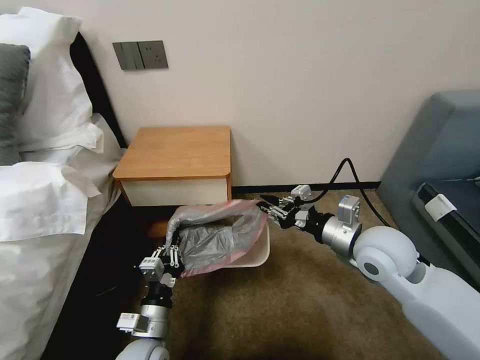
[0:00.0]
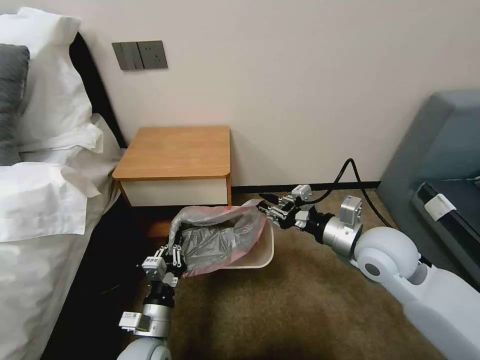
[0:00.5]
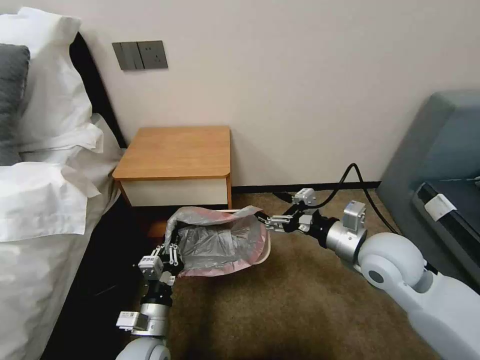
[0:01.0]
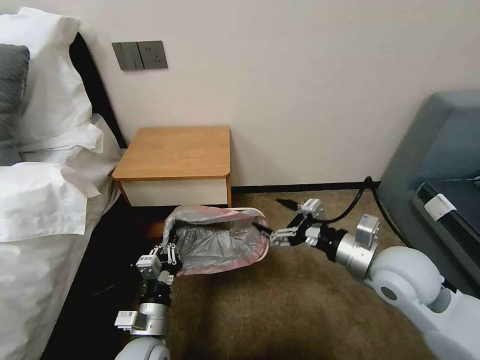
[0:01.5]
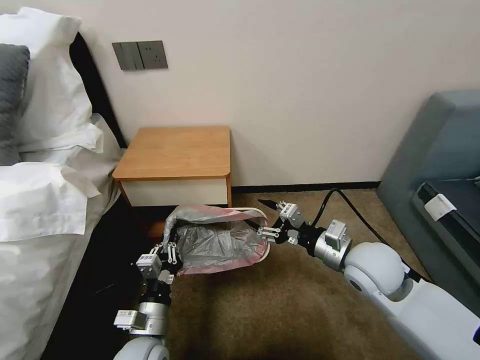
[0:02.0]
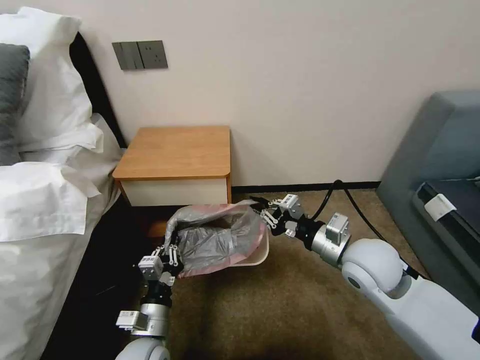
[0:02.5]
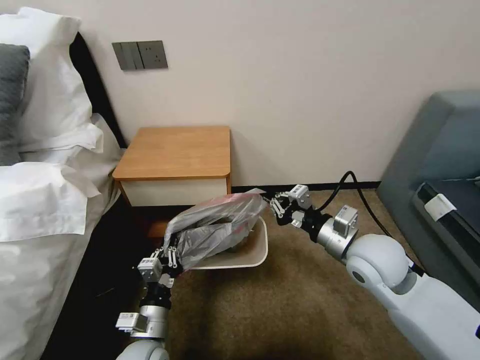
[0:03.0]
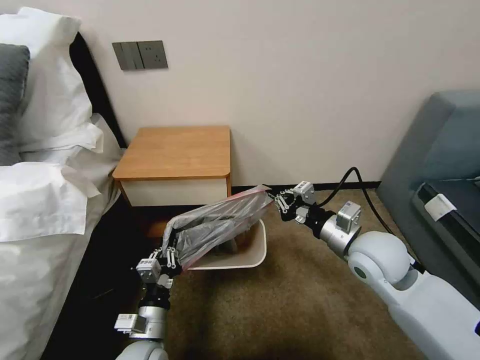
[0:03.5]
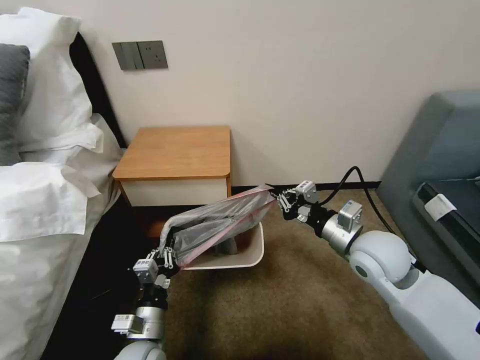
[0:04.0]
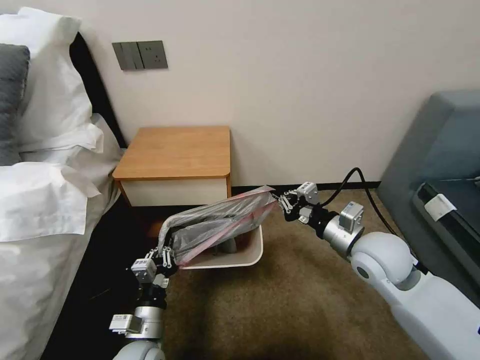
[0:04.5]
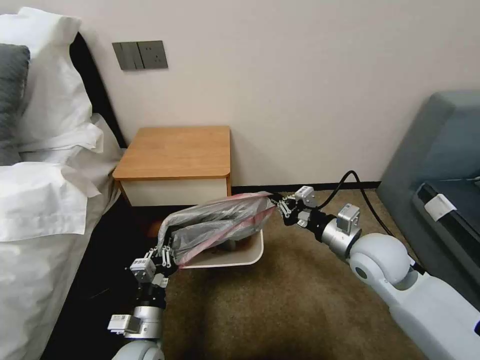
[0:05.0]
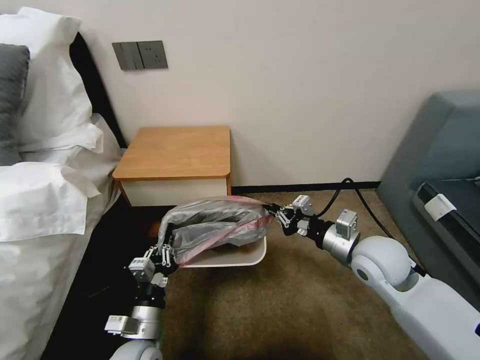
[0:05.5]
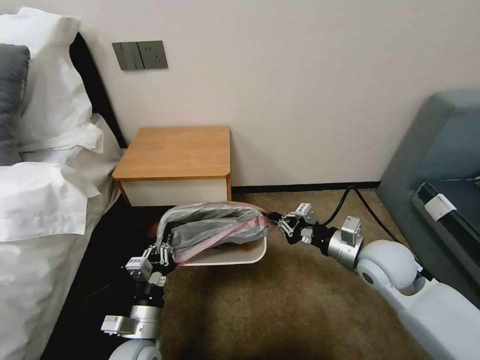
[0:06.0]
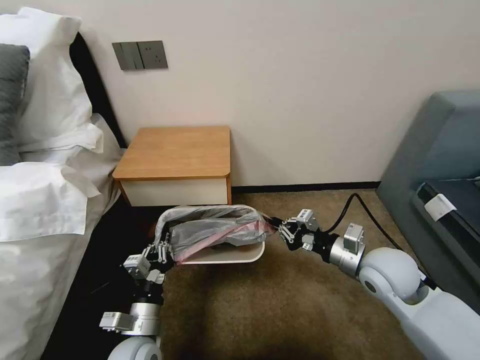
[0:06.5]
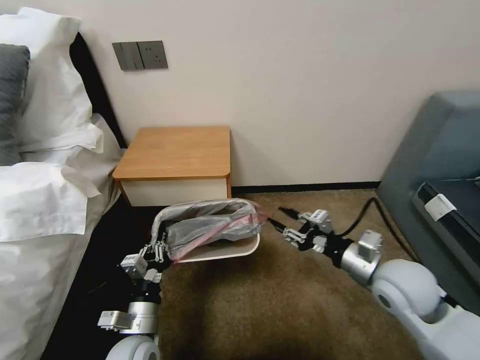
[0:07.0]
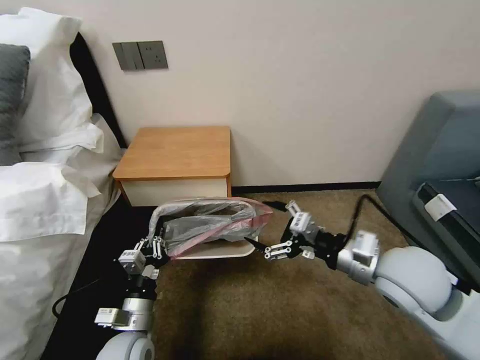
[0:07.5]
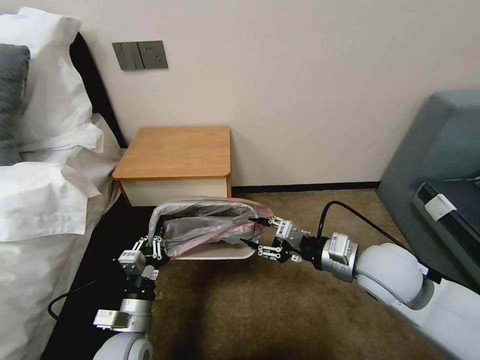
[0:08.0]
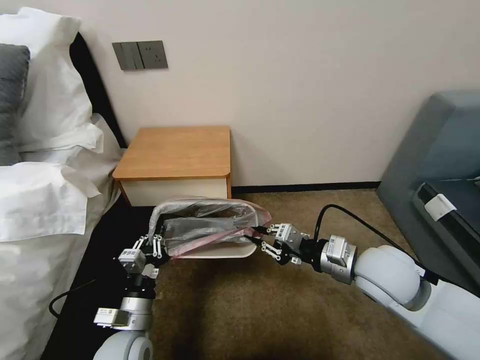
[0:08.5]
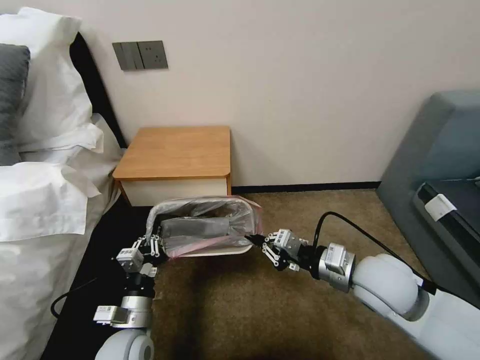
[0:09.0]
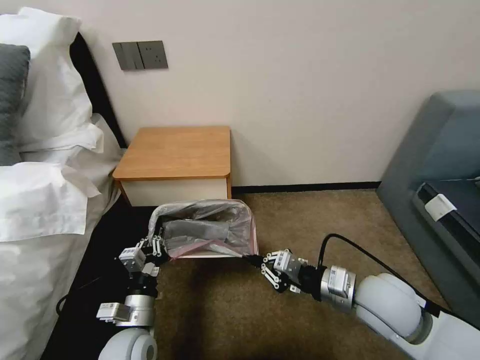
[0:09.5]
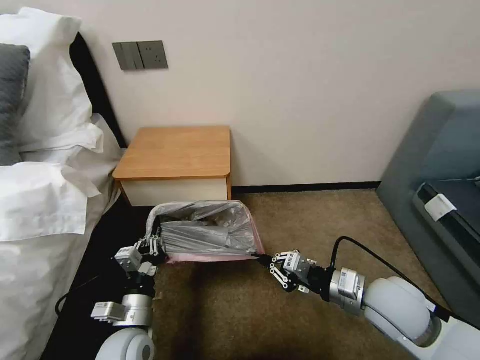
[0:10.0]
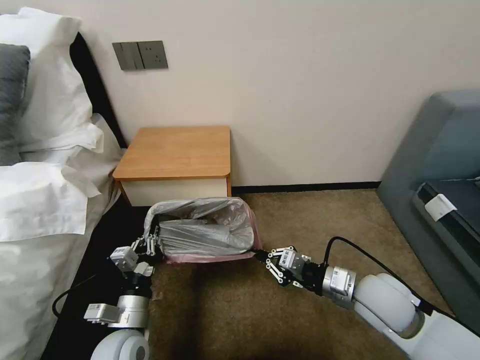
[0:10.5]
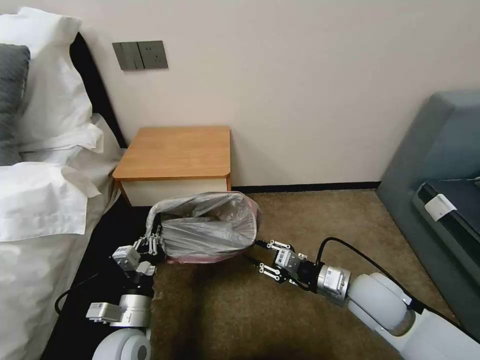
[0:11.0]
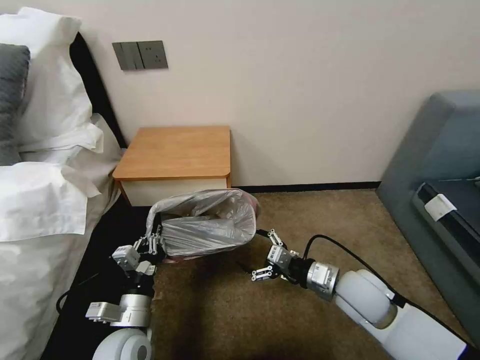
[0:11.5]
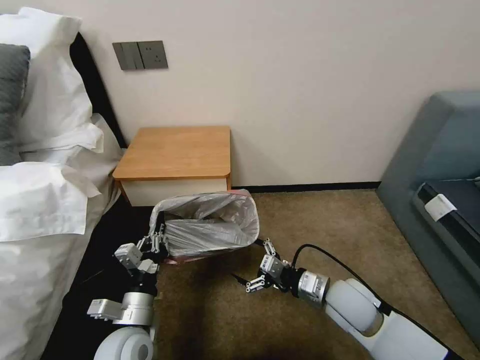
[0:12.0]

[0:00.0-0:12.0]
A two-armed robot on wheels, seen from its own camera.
Task of the whole recording: Pick up the garbage bag from the table and place it over the trash can.
0:00.0 to 0:02.0: The right gripper opens.
0:02.0 to 0:04.0: The right gripper closes up.
0:04.0 to 0:06.0: The grippers make only small movements.
0:06.0 to 0:08.0: The right gripper moves about 5 cm, and opens up.
0:08.0 to 0:10.0: The right gripper shifts some 5 cm downward, and closes up.
0:10.0 to 0:12.0: The right gripper heads downward, covering some 10 cm, and opens its fingers.

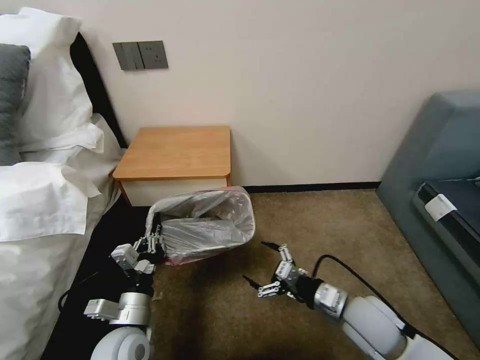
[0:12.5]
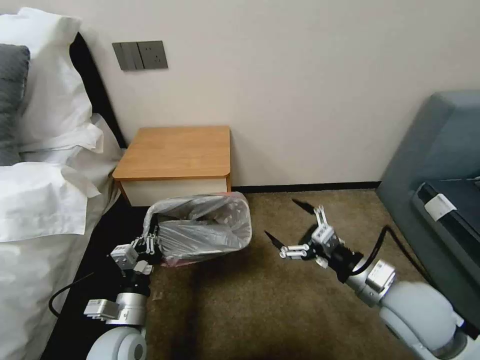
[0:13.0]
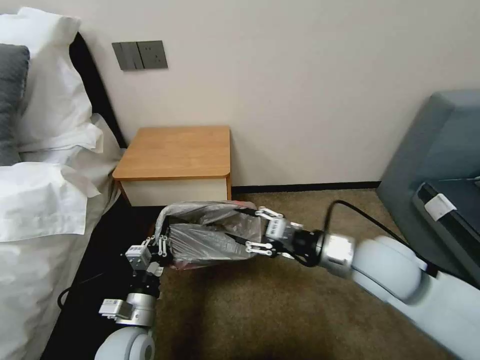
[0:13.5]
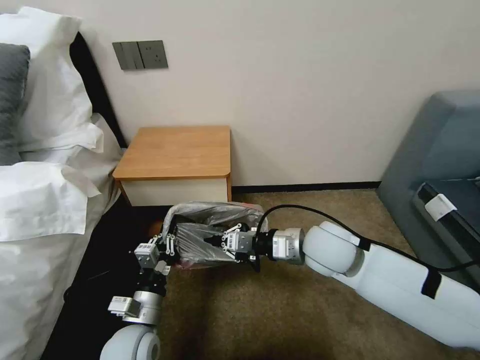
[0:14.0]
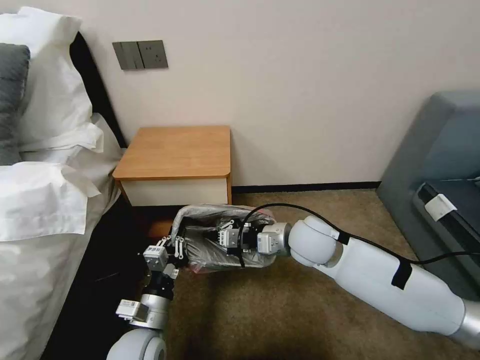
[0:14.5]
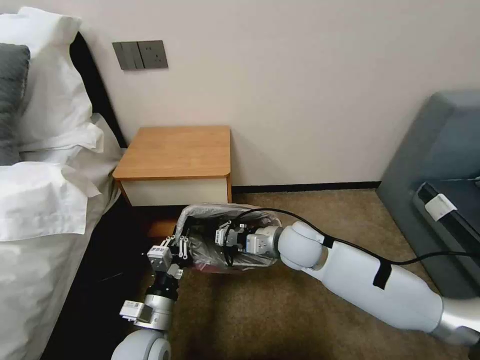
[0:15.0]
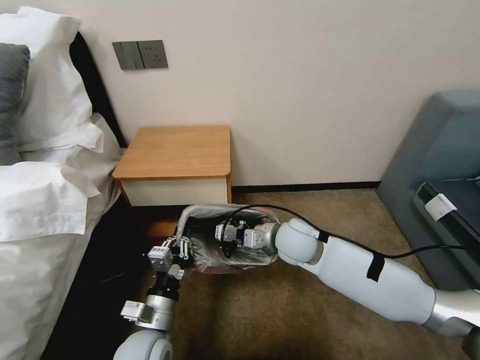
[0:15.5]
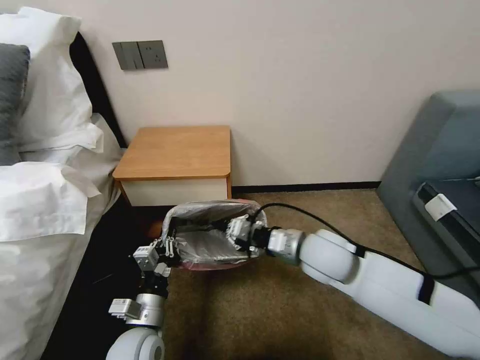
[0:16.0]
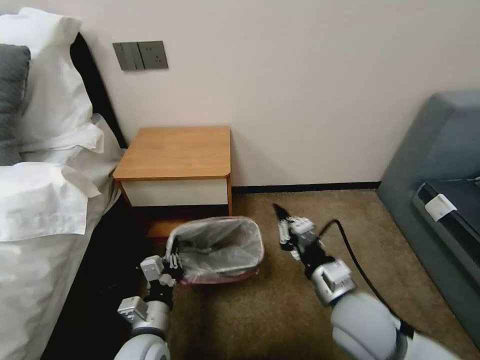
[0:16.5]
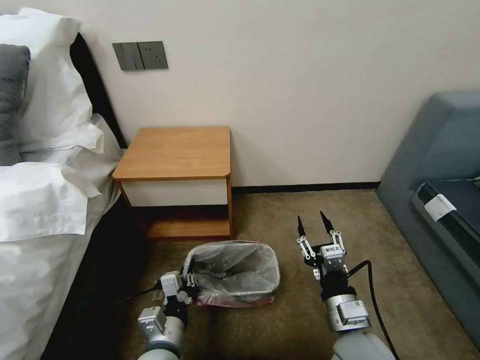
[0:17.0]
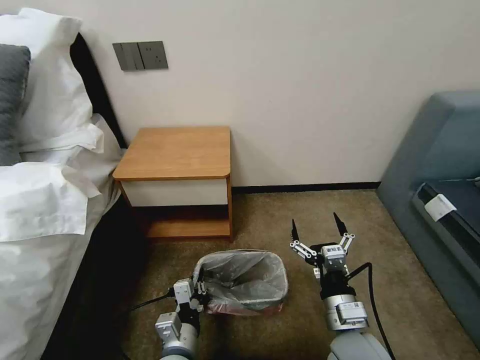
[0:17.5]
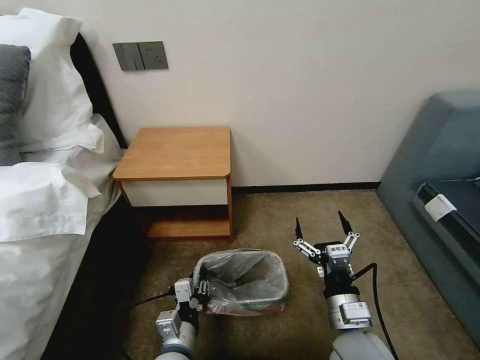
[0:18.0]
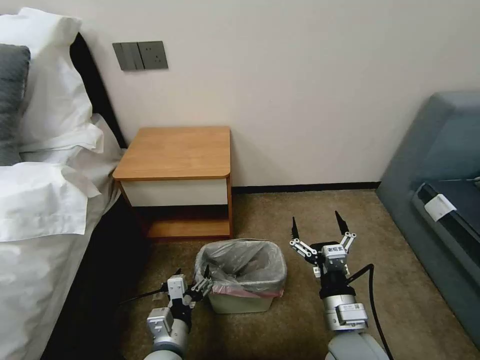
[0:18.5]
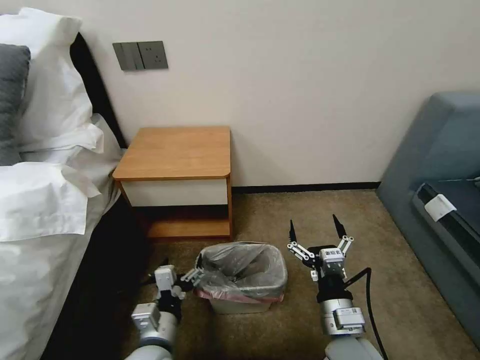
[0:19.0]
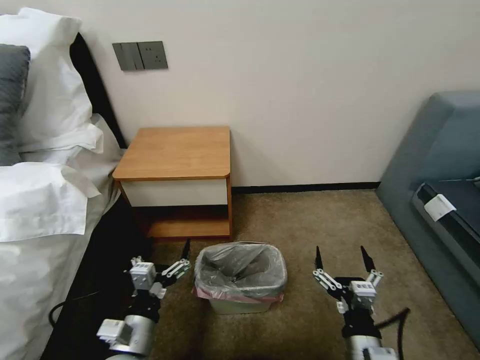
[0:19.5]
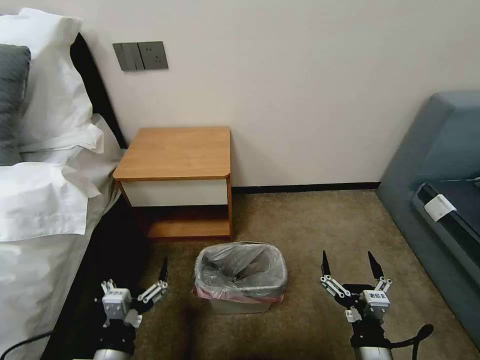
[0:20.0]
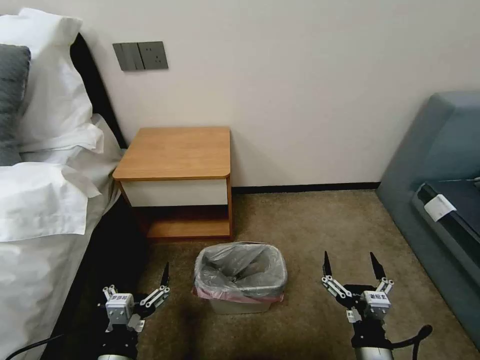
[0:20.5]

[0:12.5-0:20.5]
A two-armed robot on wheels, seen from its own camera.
Task of the whole recording: Pick up the garbage bag from the table and place it over the trash can.
0:12.5 to 0:14.5: The right gripper heads forward, to the left and upward, covering roughly 20 cm, and closes.
0:14.5 to 0:16.5: The right gripper heads backward, covering about 15 cm.
0:16.5 to 0:18.5: The right gripper moves downward, some 5 cm, and opens its fingers. Meanwhile the left gripper opens up.
0:18.5 to 0:20.5: The right gripper heads backward, covering approximately 10 cm, while the left gripper heads to the left and backward, covering about 10 cm.

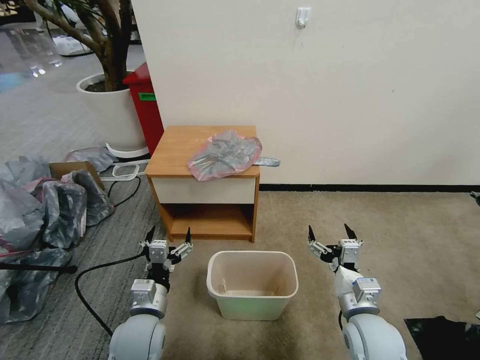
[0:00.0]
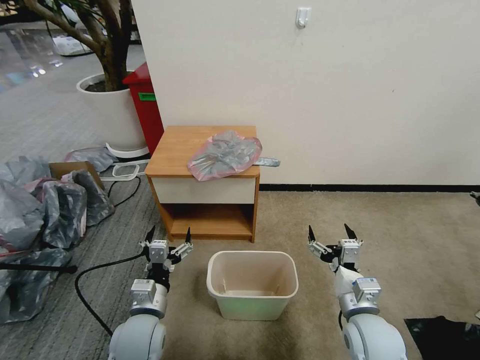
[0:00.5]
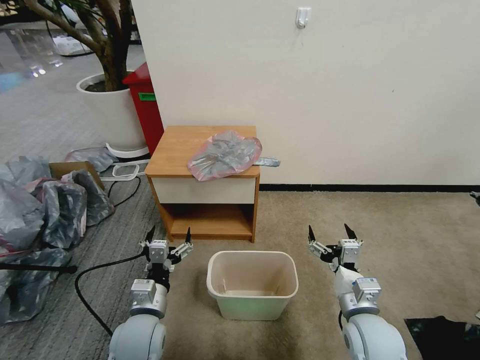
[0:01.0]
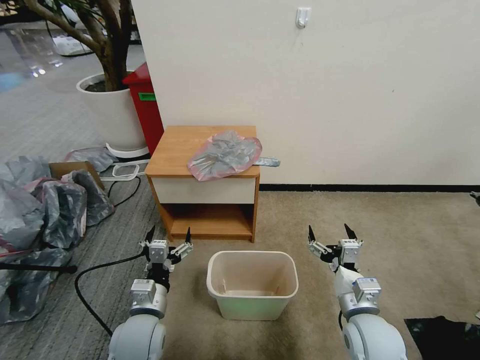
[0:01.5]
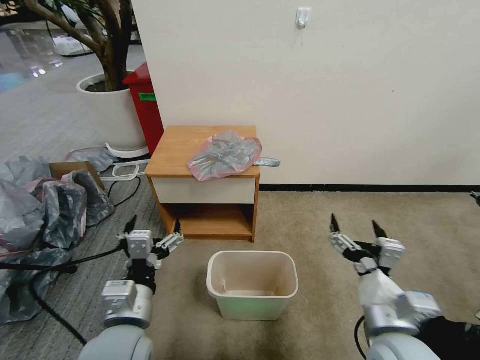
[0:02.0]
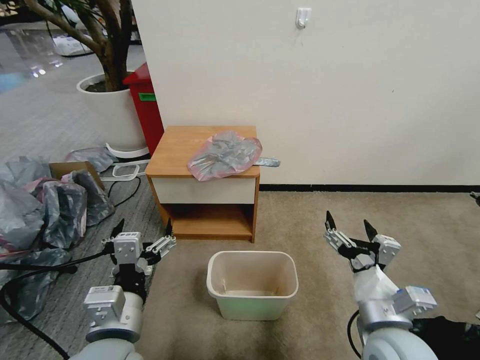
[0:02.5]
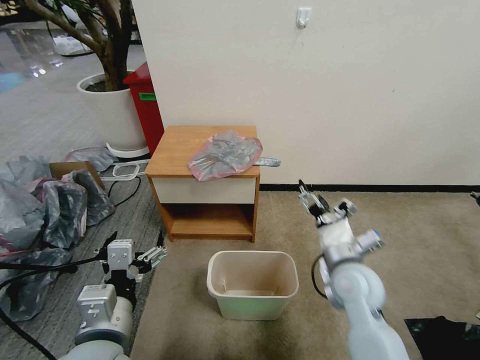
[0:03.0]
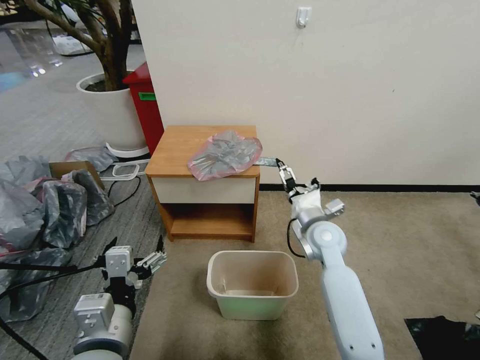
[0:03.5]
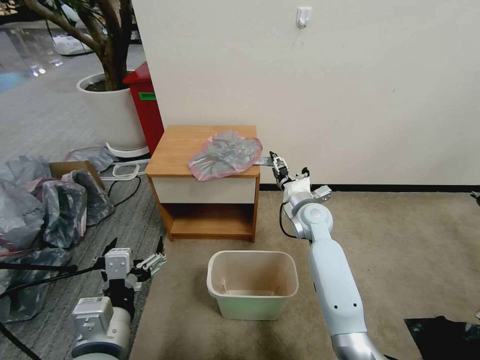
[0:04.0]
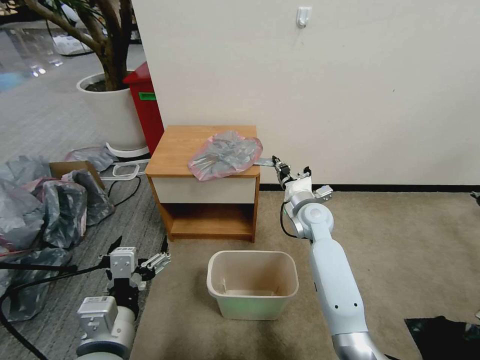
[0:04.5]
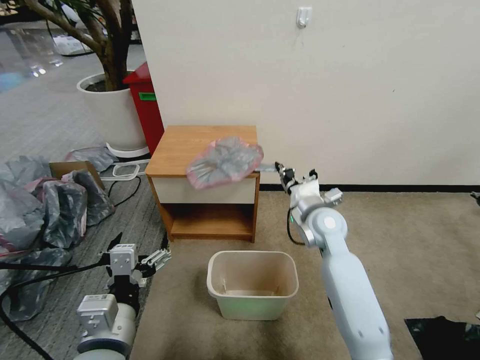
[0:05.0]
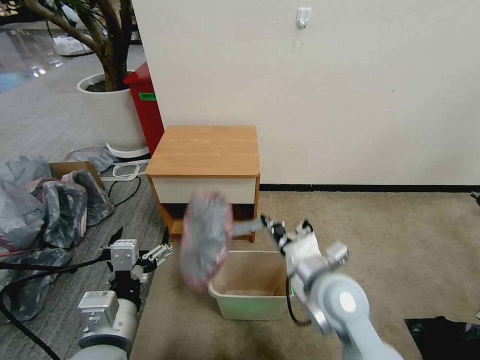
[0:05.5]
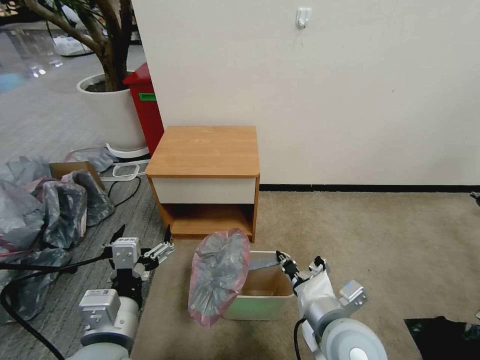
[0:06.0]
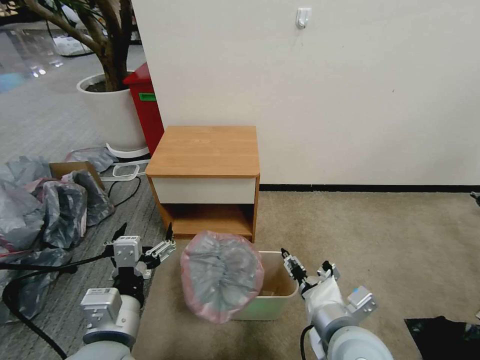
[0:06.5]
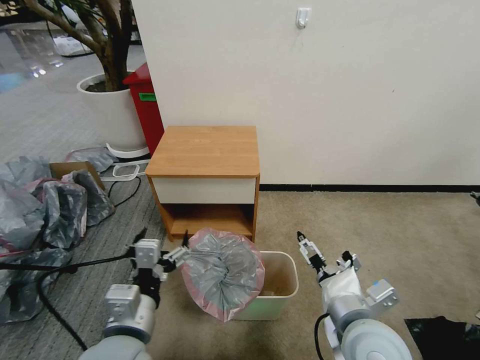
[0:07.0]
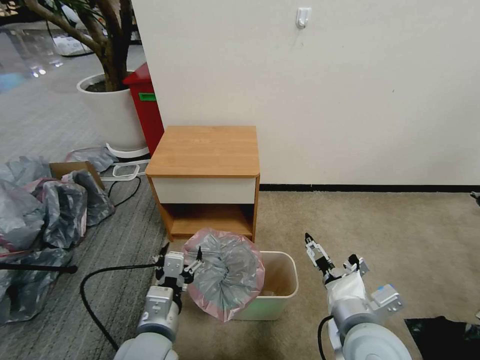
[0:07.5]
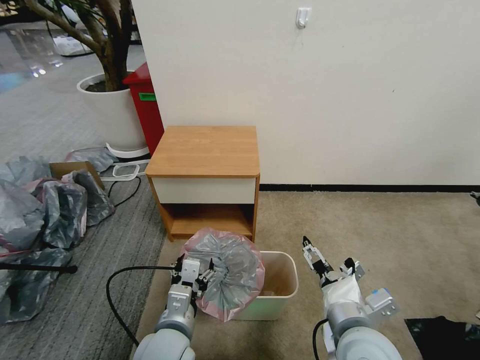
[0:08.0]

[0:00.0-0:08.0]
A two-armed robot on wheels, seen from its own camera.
Task of the whole recording: Pick up the garbage bag from the table and place it over the trash can.
0:02.0 to 0:04.0: The left gripper moves about 5 cm; the right gripper heads forward, covering about 30 cm.
0:04.0 to 0:06.0: The right gripper travels backward by roughly 30 cm, and closes up.
0:06.0 to 0:08.0: The right gripper opens its fingers, while the left gripper goes roughly 10 cm downward and to the right.
